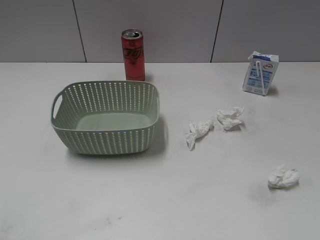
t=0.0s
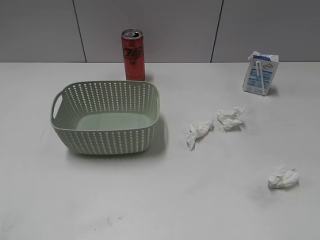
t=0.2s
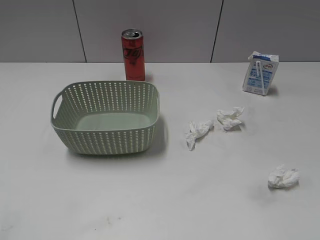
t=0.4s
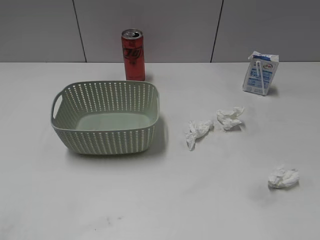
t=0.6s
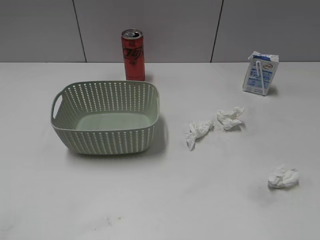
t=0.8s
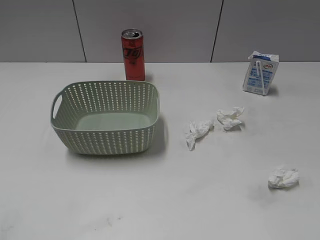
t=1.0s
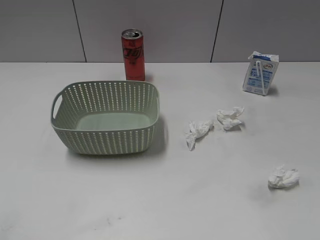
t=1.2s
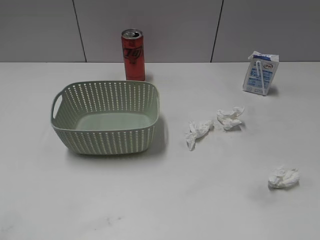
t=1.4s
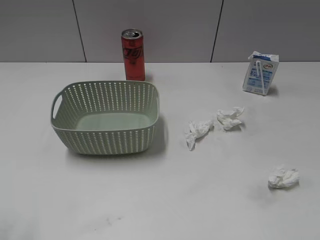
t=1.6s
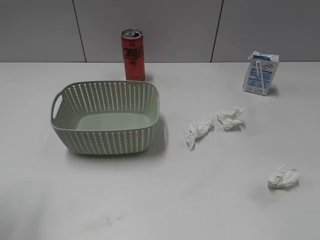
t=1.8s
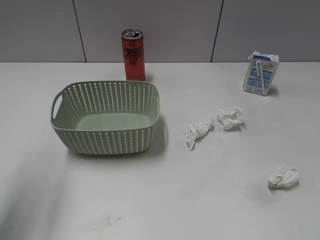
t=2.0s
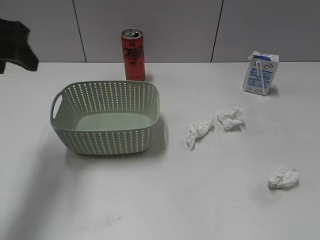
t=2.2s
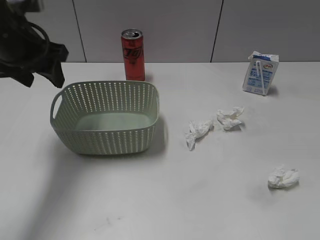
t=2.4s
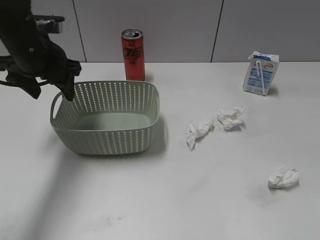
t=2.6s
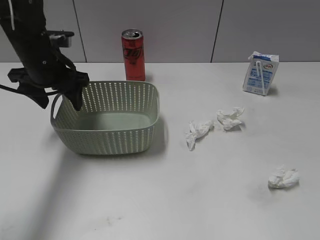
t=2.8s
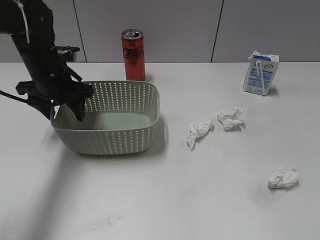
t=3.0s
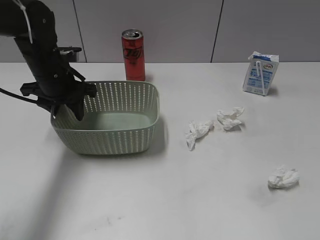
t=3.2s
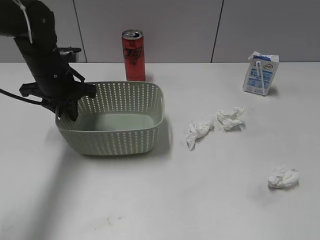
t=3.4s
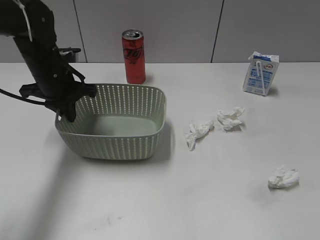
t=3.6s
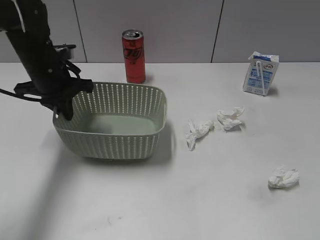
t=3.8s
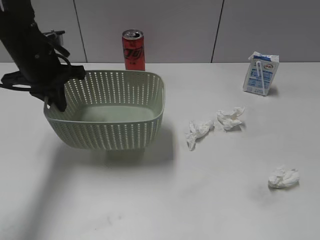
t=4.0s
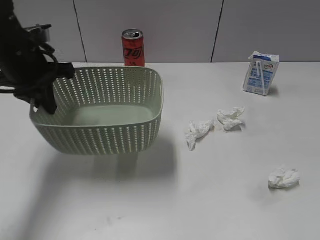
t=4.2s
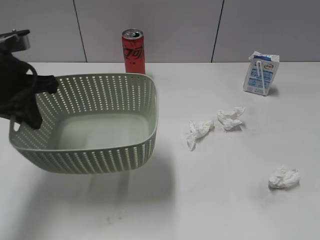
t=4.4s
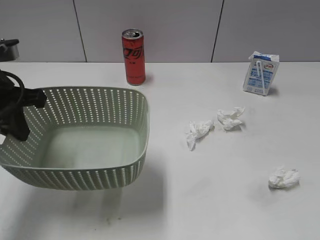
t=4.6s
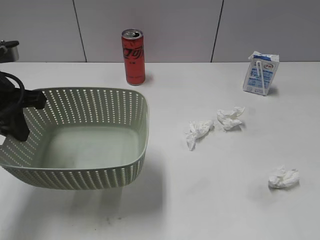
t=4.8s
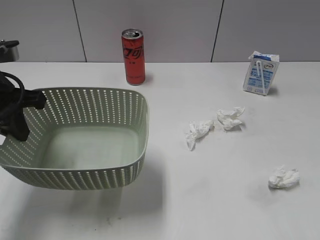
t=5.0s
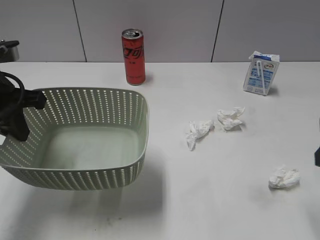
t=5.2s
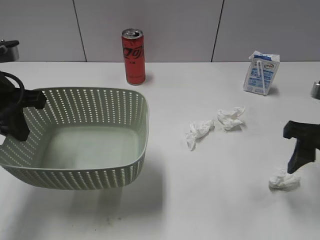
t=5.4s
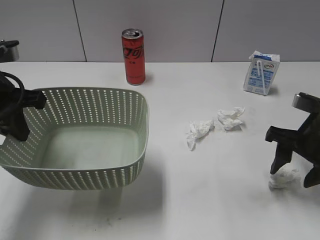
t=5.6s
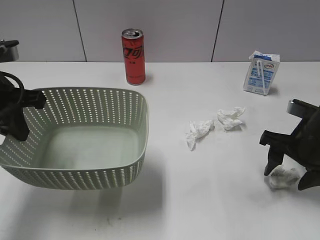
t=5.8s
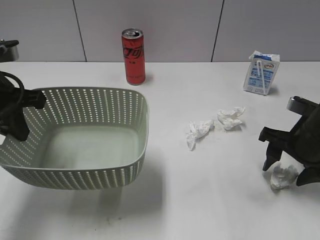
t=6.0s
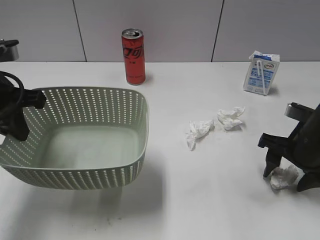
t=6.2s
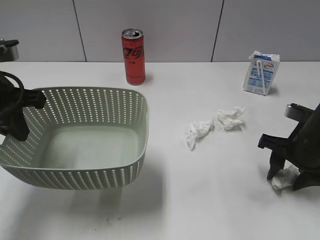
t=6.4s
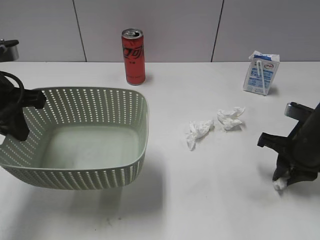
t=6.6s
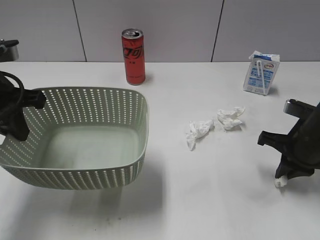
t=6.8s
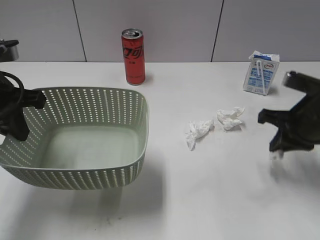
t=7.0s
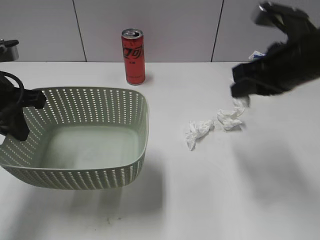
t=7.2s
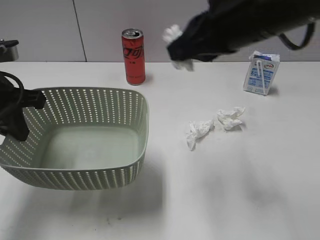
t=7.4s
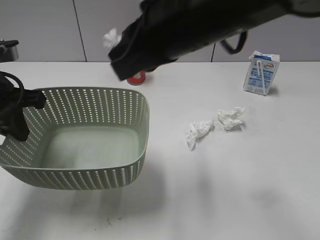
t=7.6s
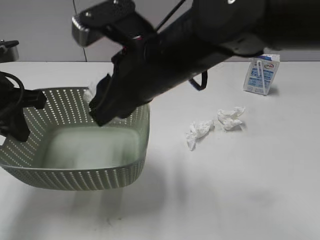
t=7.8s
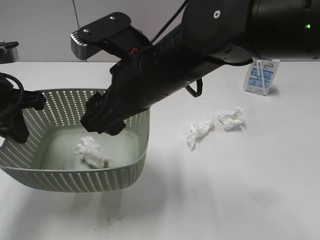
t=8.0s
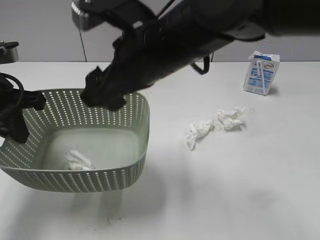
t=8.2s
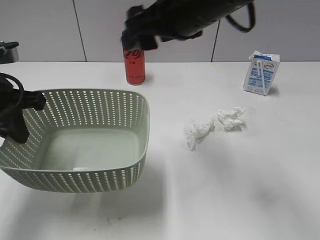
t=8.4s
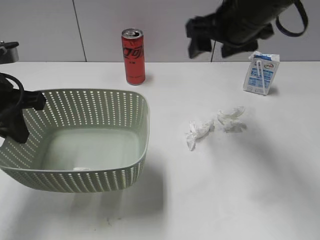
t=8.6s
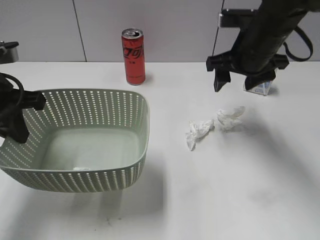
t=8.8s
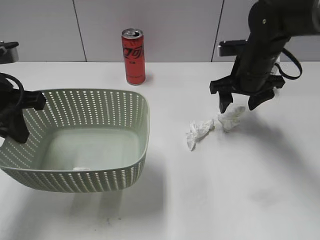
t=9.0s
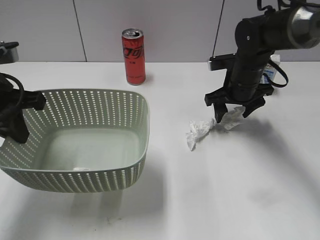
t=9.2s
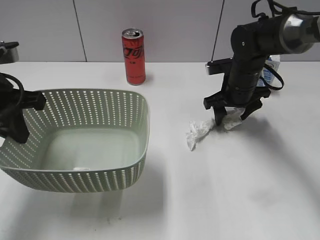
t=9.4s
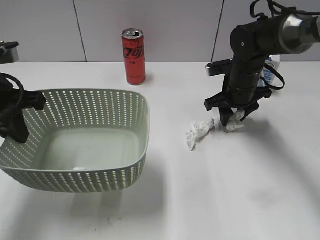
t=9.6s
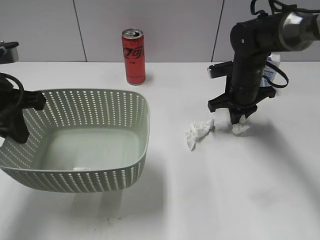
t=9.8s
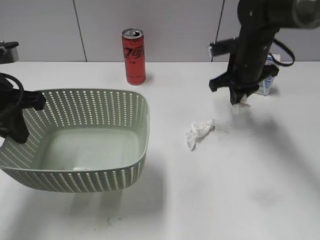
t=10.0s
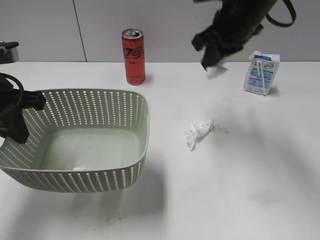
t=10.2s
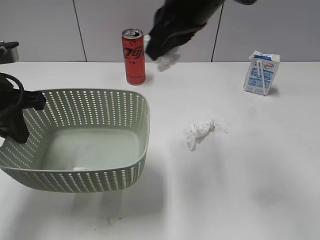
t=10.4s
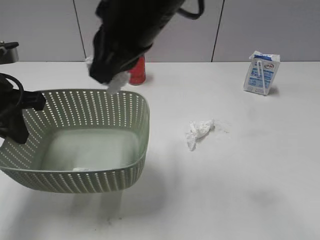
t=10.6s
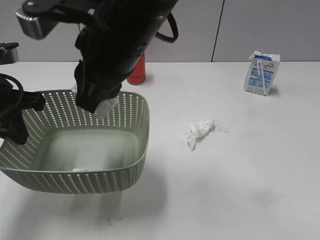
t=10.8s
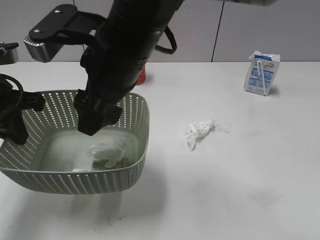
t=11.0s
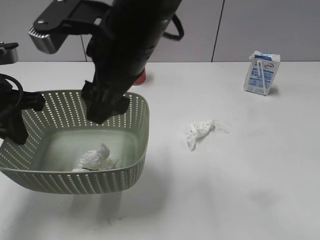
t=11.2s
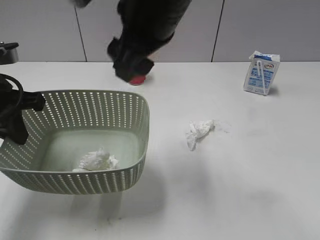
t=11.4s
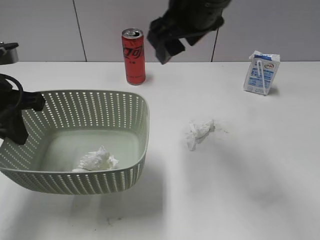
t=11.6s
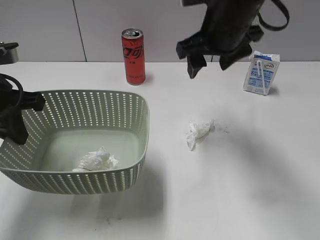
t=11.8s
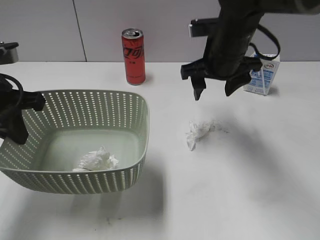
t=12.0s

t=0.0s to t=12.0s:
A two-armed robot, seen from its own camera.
Step, t=2.2s to t=3.6s: Grasp the basket with left gripper.
Step, t=3.8s to t=4.6s: Lift the basket with left gripper.
Step, t=4.8s to t=6.6s: Grasp the waste paper with right gripper.
Step, t=6.8s to t=8.2s: Place the waste paper in the basket with right gripper.
Step, t=8.4s to t=9.8s: Grasp the waste paper with right gripper.
Step, t=10.0s to t=11.2s: Place the waste paper in the basket with right gripper.
t=1.6s to t=3.0s: The left gripper goes about 35 cm forward and downward.
t=3.0s to t=4.4s: The left gripper travels backward and upward by some 10 cm, and closes its fingers.
t=4.4s to t=6.0s: The right gripper travels forward and downward by about 30 cm.
t=6.0s to t=7.6s: The right gripper shifts approximately 30 cm to the left and upward, and closes up.
t=7.6s to t=9.0s: The right gripper shifts roughly 25 cm forward, downward and to the right, and opens its fingers.
t=9.0s to t=10.4s: The right gripper goes approximately 20 cm upward, to the left and backward, and closes up.
t=10.4s to t=12.0s: The right gripper heads downward, covering roughly 10 cm, travels to the left and back again, approximately 10 cm each way, and opens up.

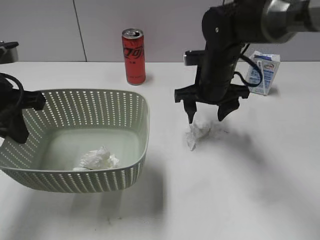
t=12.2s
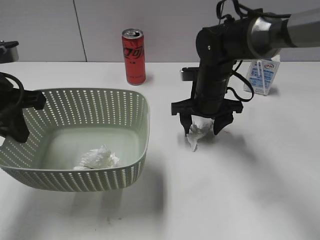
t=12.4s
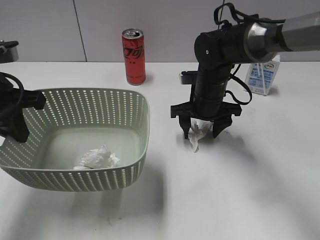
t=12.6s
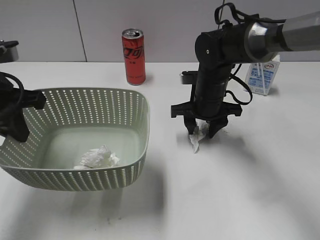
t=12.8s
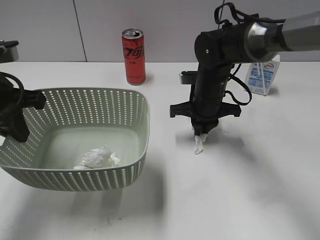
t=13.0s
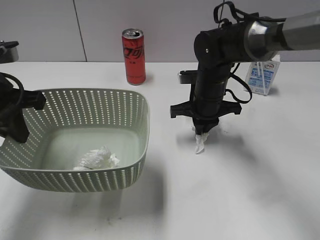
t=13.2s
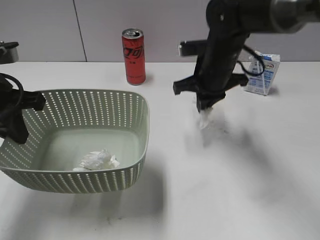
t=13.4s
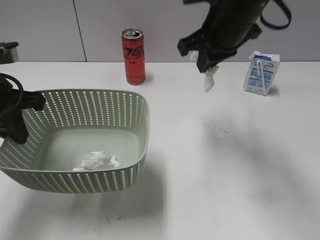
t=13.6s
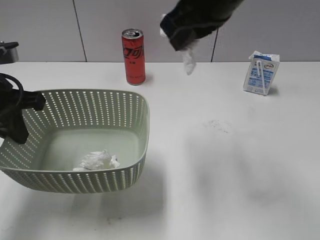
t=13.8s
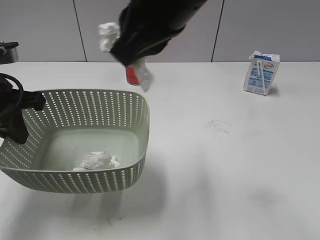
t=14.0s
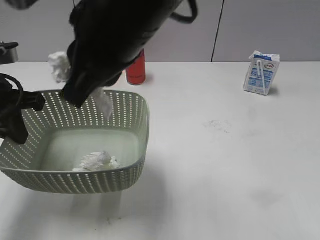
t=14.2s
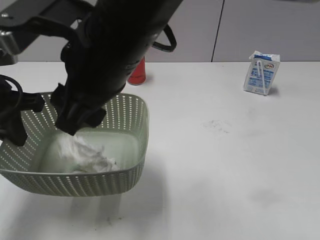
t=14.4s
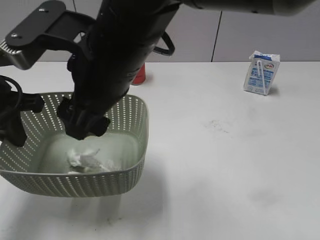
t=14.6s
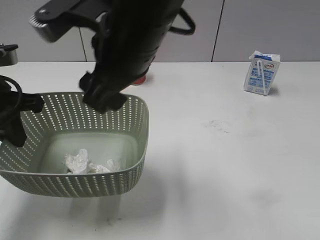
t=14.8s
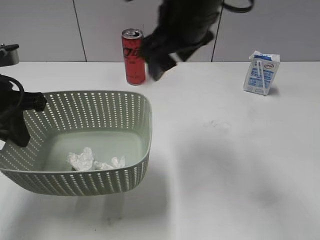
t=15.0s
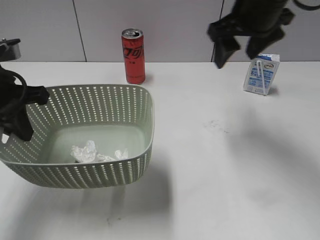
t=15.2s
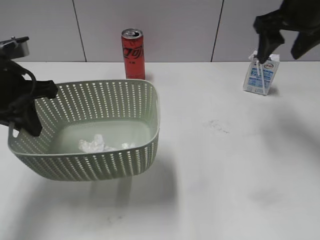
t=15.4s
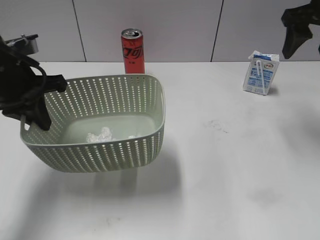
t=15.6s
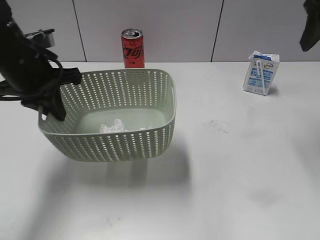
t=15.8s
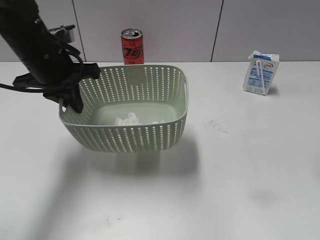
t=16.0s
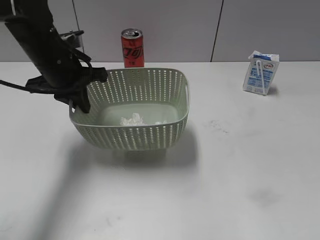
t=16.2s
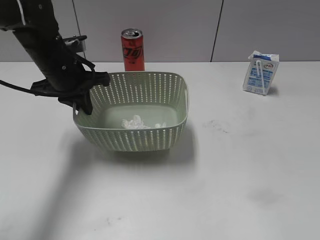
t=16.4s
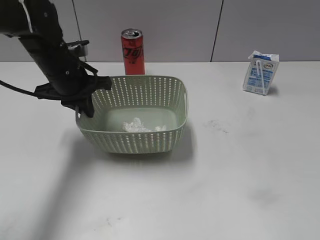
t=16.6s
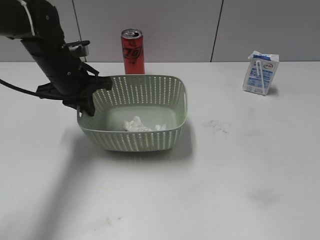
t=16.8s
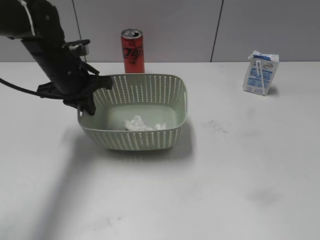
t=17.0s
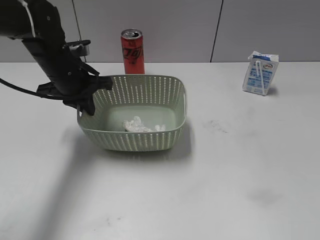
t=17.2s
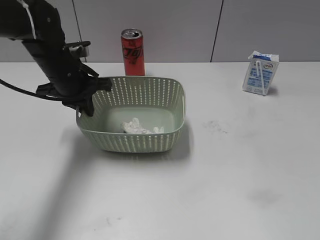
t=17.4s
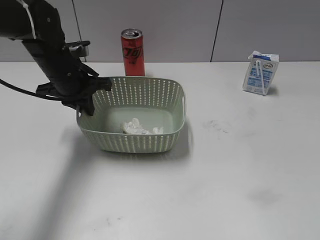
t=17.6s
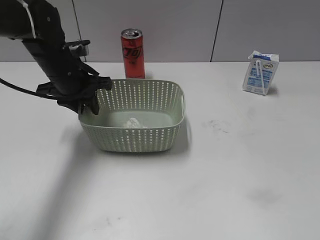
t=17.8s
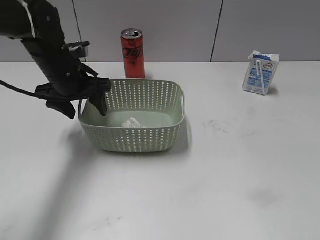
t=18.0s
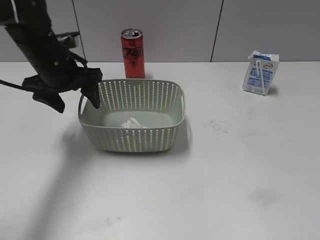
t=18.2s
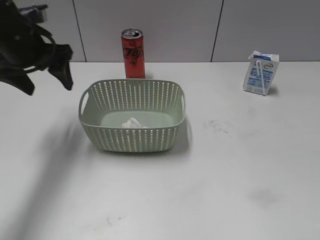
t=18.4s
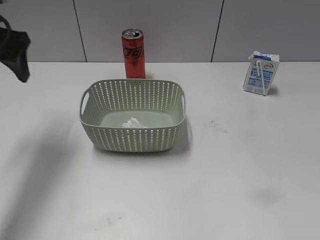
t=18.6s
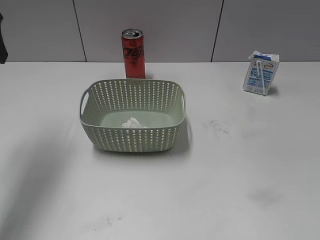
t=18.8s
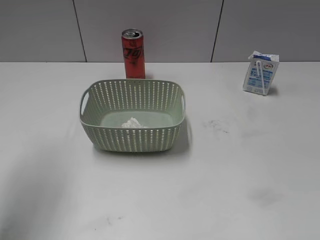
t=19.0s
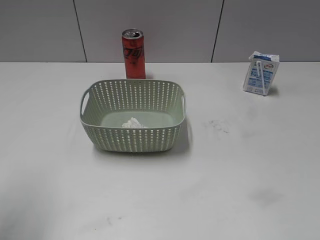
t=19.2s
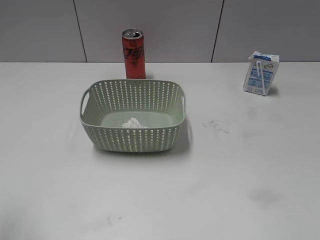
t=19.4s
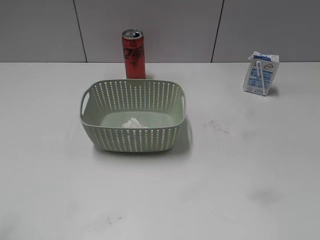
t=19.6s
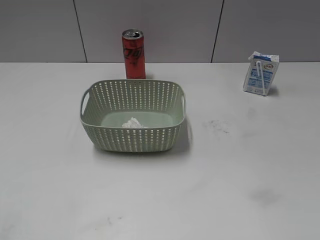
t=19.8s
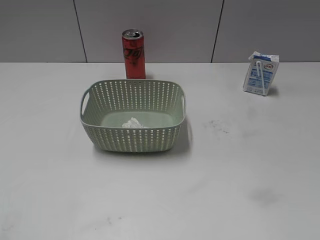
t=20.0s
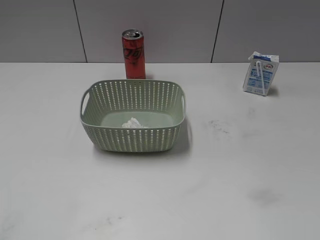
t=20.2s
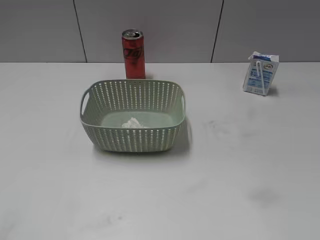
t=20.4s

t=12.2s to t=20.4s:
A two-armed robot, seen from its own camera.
Step, t=13.2s to t=14.6s: Place the waste paper in the basket with right gripper.
Step, t=14.8s to t=18.2s: Place the basket on the table with left gripper.
t=12.2s to t=13.8s: The right gripper travels upward and backward by roughly 20 cm, and closes up.
t=13.8s to t=15.4s: The right gripper is displaced to the right and forward by roughly 15 cm, and opens its fingers.
t=15.4s to t=17.2s: The left gripper moves forward, downward and to the right, roughly 15 cm; the right gripper moves backward, roughly 40 cm.
t=17.2s to t=18.8s: The left gripper is displaced upward, to the left and backward by some 20 cm, and opens.
t=18.8s to t=20.4s: The left gripper travels backward by roughly 30 cm.

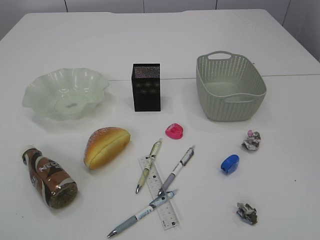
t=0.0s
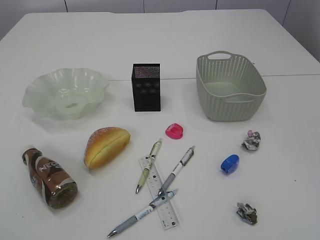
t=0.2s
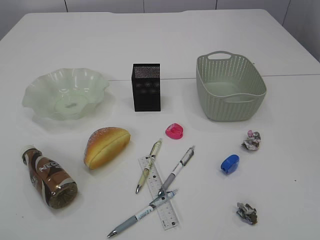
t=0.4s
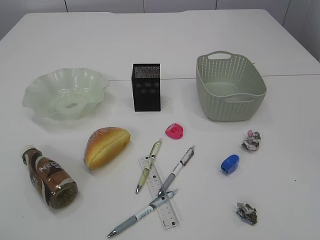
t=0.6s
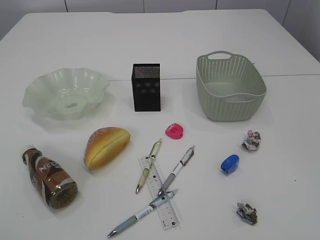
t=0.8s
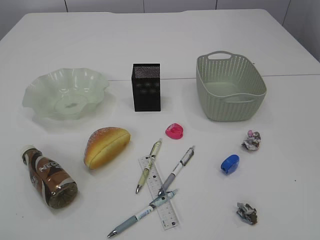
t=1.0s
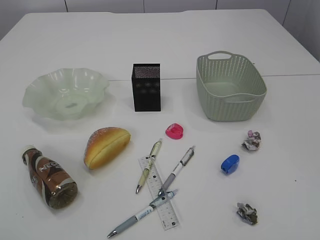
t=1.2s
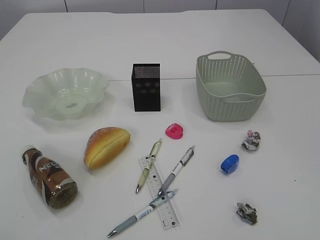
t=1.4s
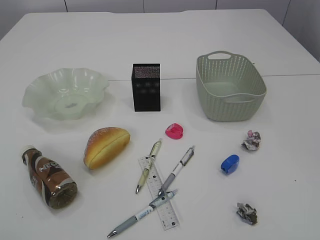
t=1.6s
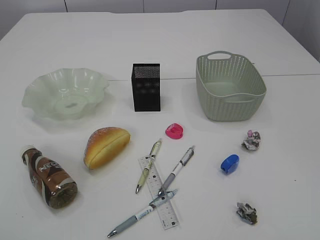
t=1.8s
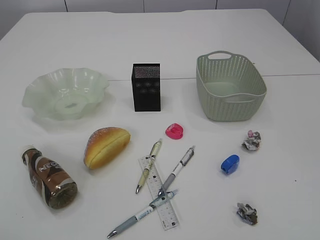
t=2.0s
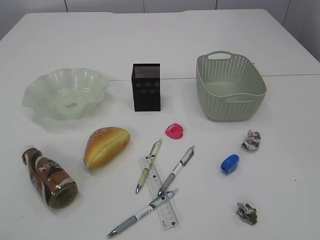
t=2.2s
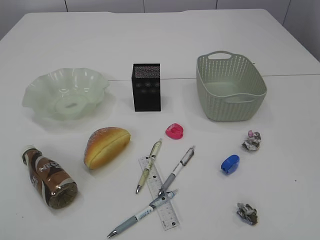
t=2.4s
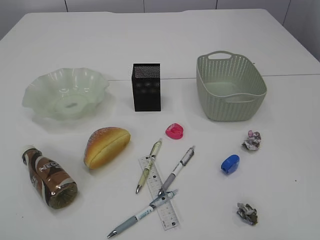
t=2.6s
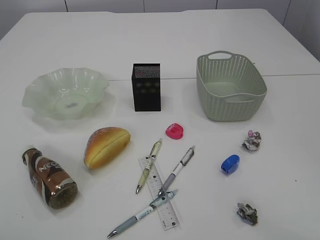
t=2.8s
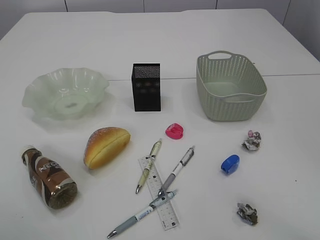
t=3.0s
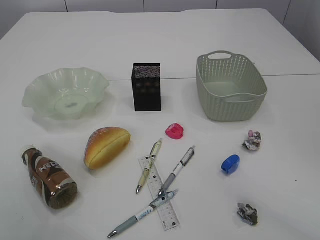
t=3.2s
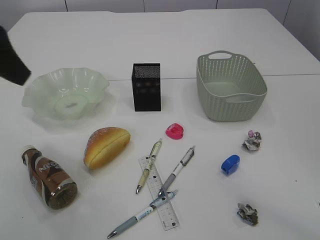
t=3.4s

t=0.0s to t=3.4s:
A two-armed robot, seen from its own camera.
t=1.6s to t=3.4s: The left gripper heads forward, covering roughly 25 cm.
